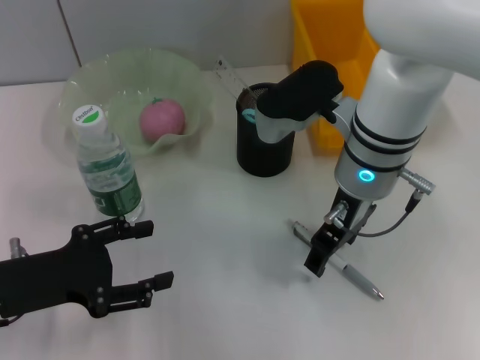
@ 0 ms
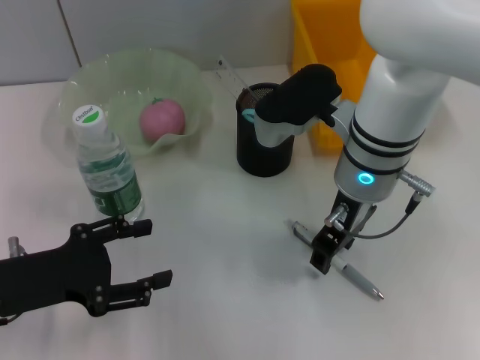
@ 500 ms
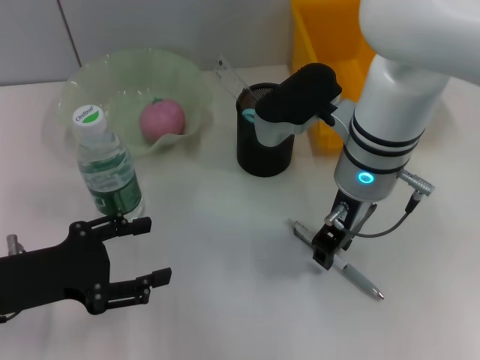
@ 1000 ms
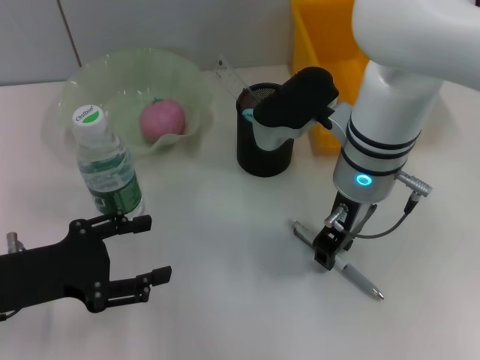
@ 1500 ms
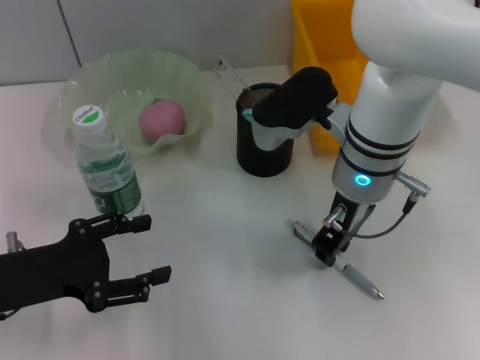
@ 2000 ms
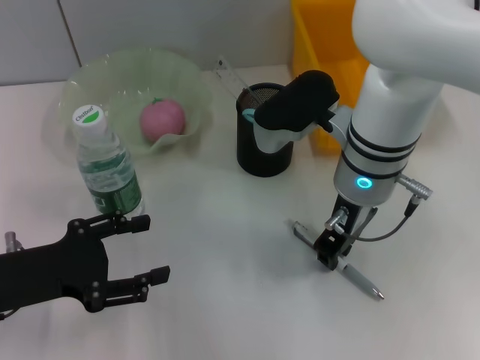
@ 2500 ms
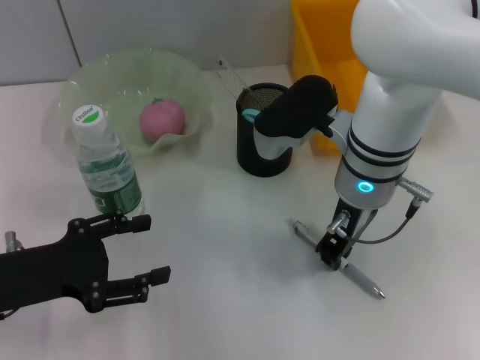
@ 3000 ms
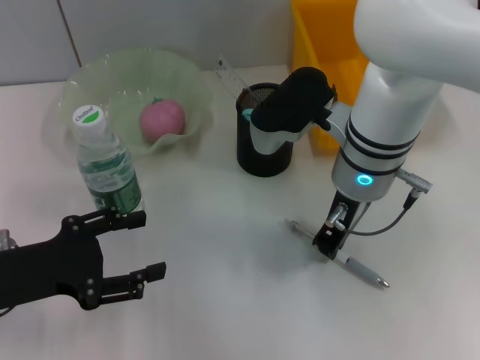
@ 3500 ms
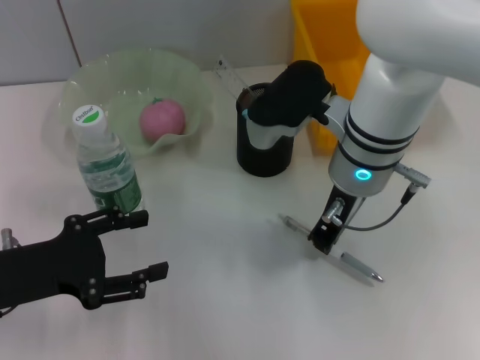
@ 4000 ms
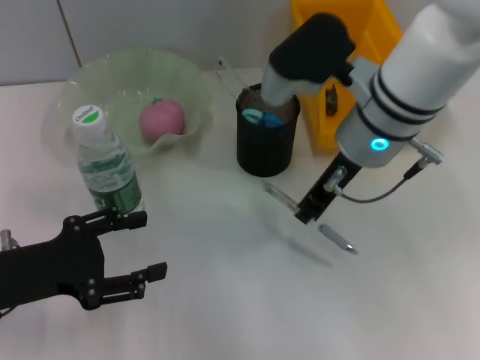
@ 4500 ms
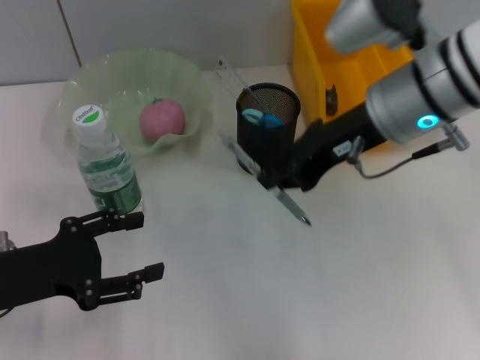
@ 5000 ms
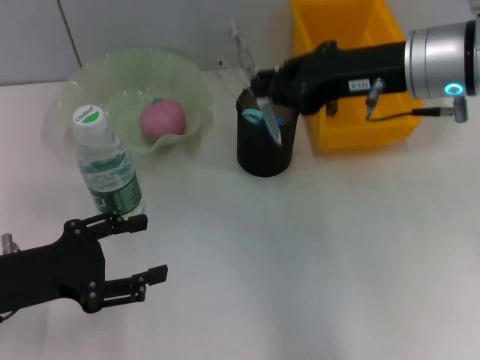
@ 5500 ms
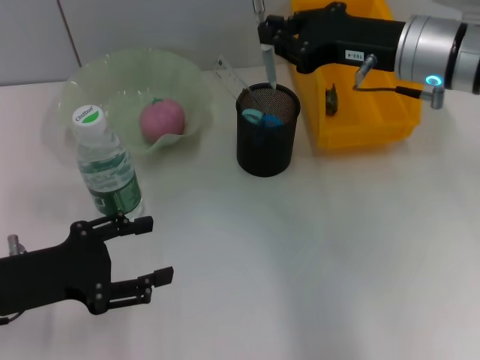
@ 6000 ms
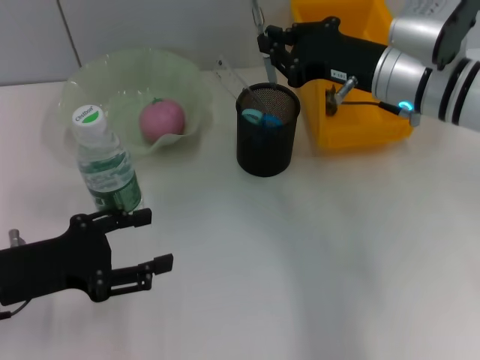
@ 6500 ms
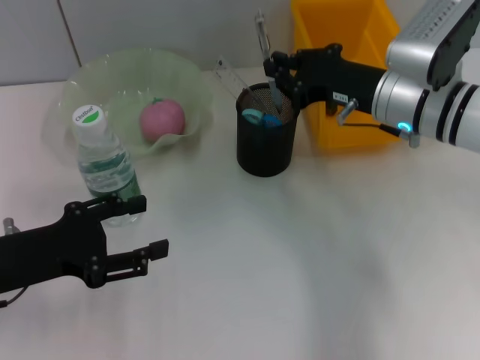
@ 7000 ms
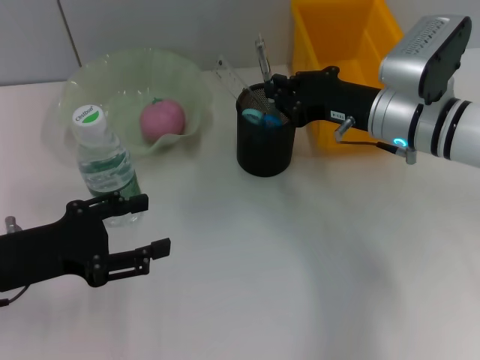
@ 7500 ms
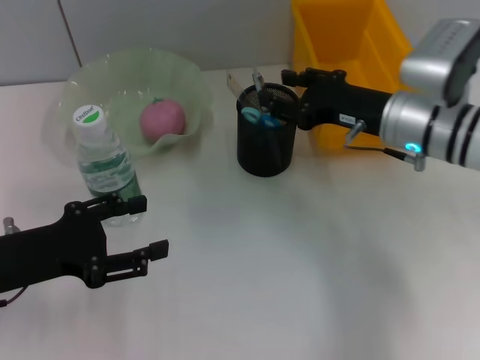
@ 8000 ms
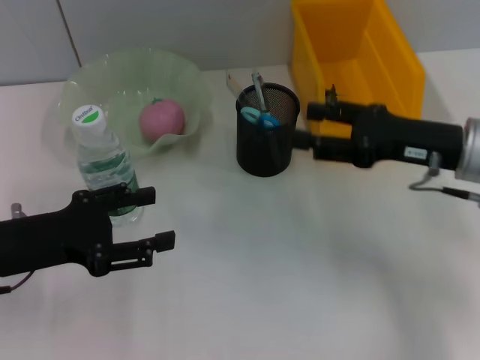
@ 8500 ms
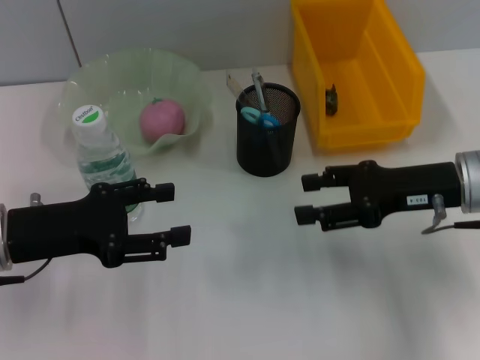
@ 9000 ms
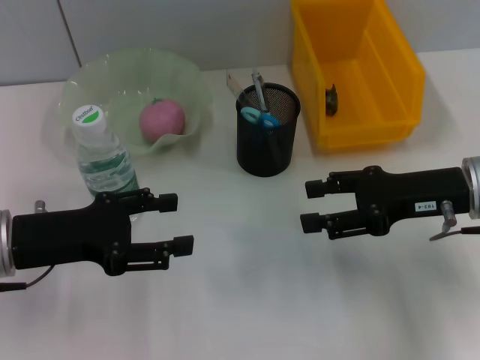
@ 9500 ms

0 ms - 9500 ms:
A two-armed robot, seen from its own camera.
Step, 0 ms - 3000 ms: Grab the gray spring-action pen with the right hand.
Step, 3500 ms - 7500 ms: Place the gray spring-action pen into the pen holder with the right hand.
0 ms - 2000 ms: The right gripper closes up.
2000 ms - 4000 ms: The grippers make only small movements.
4000 ms - 5500 ms: The right gripper moves to the right and upward, approximately 10 cm.
5500 ms - 7500 ms: The right gripper moves downward, some 10 cm.
7500 ms - 9500 ms: The right gripper travels backward and to the right by some 10 cm, and opens up.

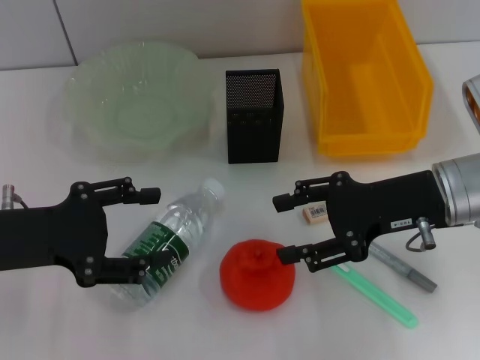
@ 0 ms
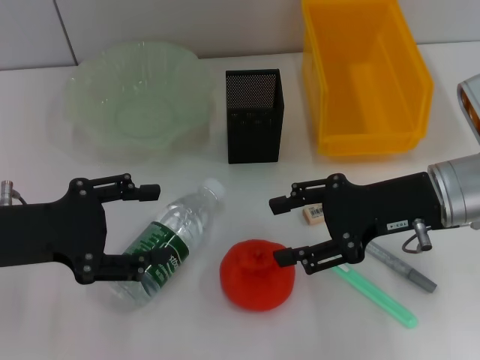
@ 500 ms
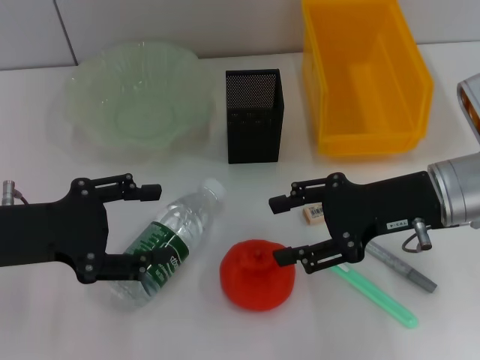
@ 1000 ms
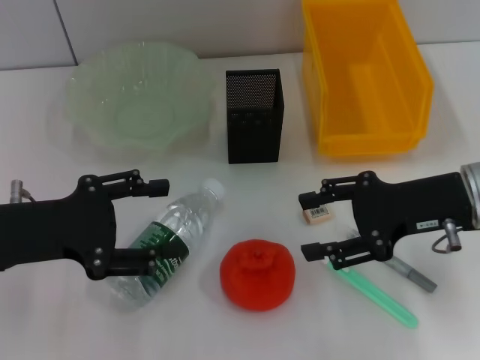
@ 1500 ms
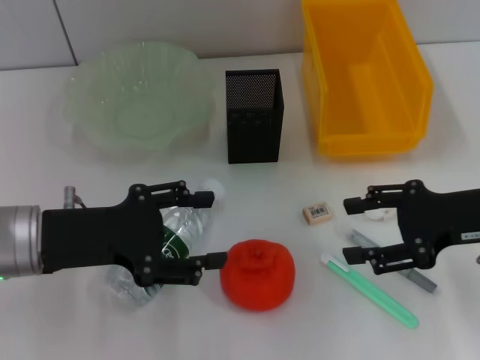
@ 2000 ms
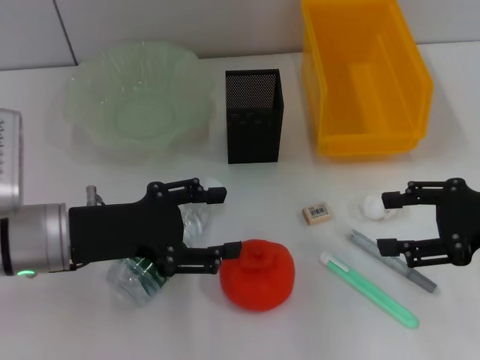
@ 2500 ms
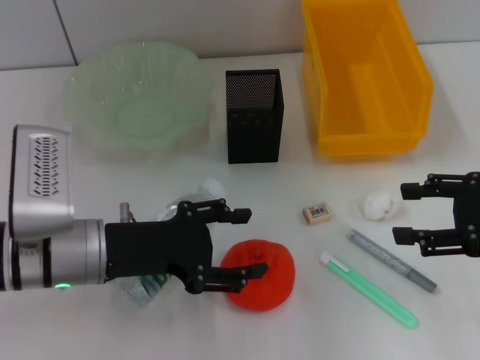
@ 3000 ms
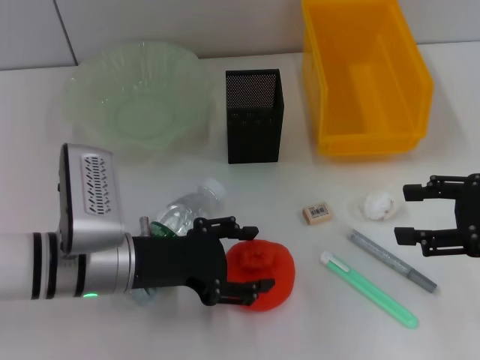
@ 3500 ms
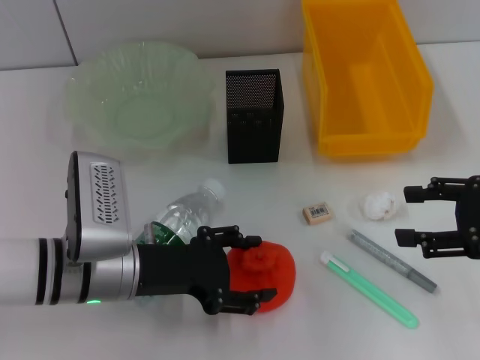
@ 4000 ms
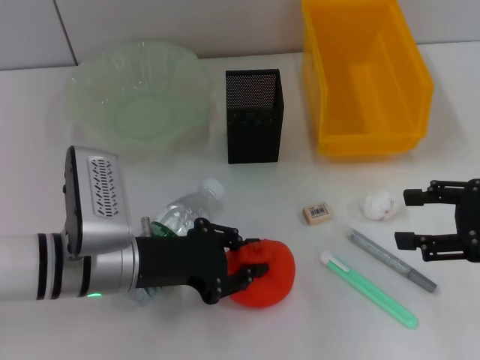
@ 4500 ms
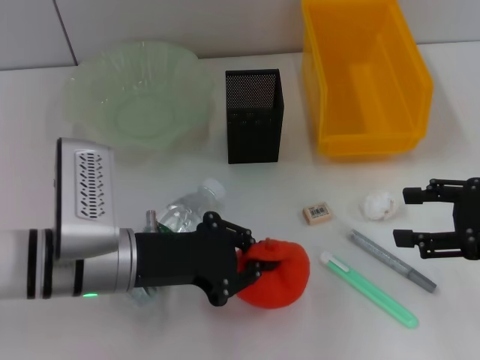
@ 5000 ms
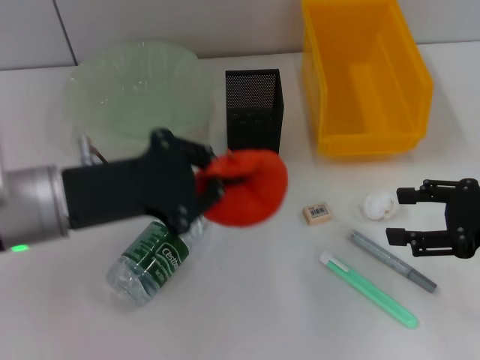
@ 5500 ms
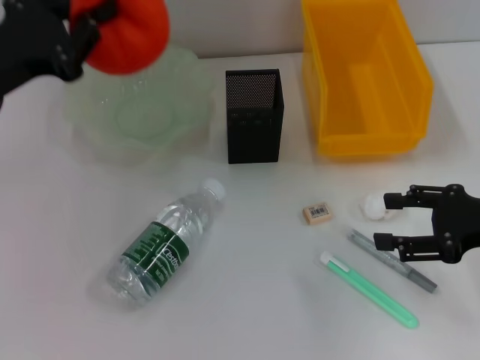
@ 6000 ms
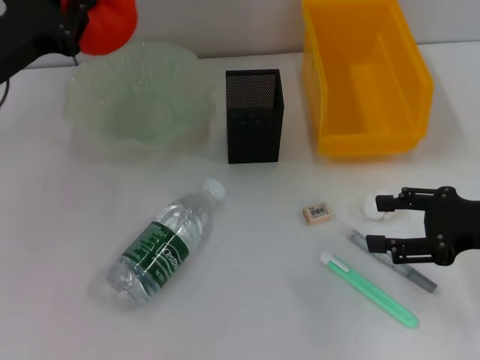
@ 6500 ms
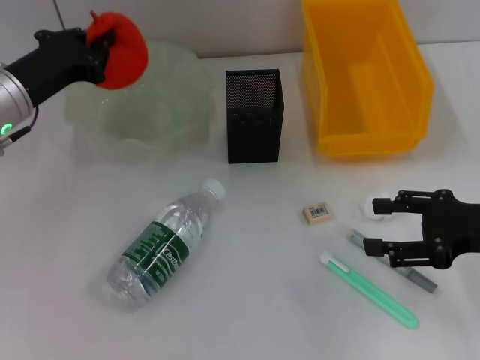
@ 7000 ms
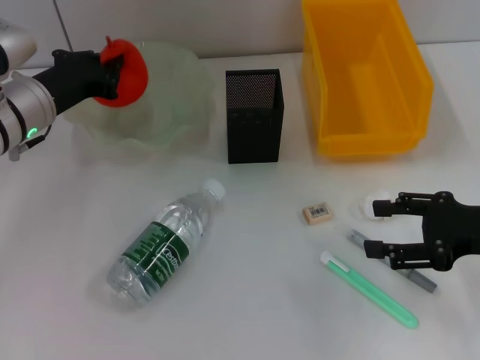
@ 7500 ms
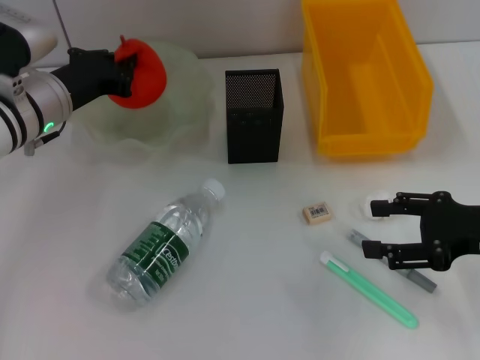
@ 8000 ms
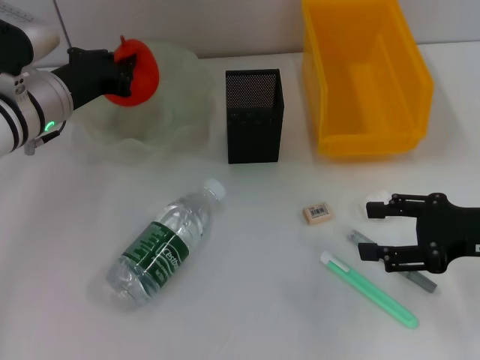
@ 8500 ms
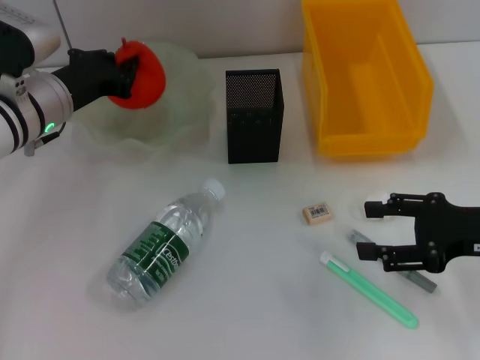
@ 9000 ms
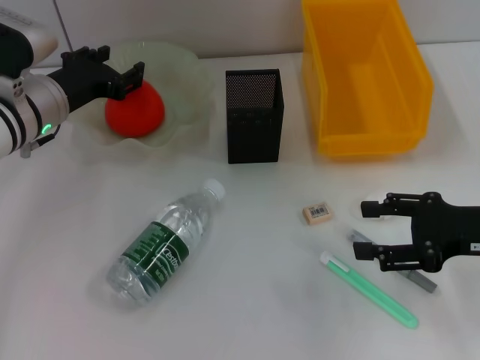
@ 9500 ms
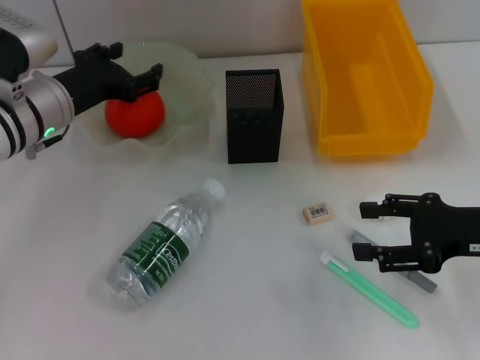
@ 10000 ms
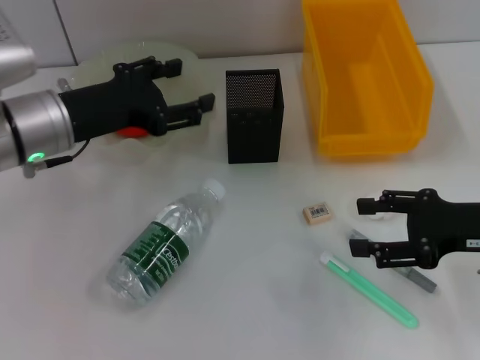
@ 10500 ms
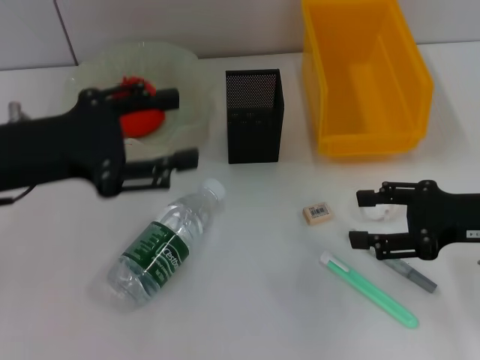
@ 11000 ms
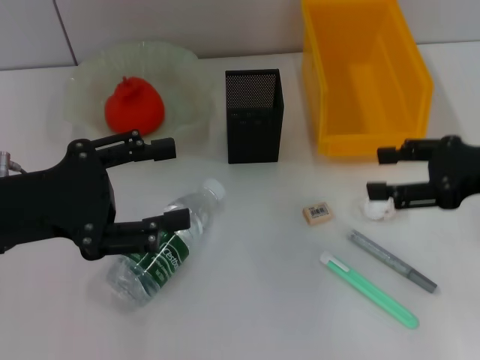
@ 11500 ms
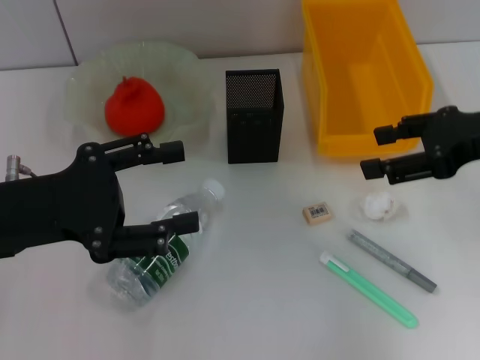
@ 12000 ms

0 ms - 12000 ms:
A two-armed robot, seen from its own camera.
Step, 0 ms - 4500 ms: Grab the orange with the left hand.
Step, 5000 ms - 9500 ms: Place the orange into the fruit bowl with the left hand.
0 ms - 2000 ms: The right gripper heads to the right, covering about 5 cm.
2000 ms - 4000 ms: The right gripper moves approximately 5 cm. The left gripper heads to the right and downward, covering some 10 cm.
4000 ms - 6000 ms: The left gripper travels upward, to the left and forward by roughly 15 cm, and closes up.
6000 ms - 8000 ms: The left gripper moves forward, downward and to the right, approximately 15 cm.
8000 ms - 10000 ms: The left gripper opens its fingers.
10000 ms - 12000 ms: The right gripper goes approximately 10 cm upward; the left gripper moves backward, approximately 15 cm.

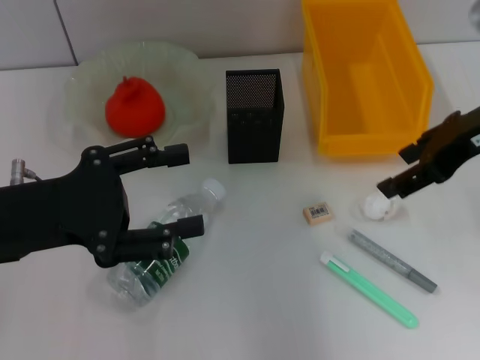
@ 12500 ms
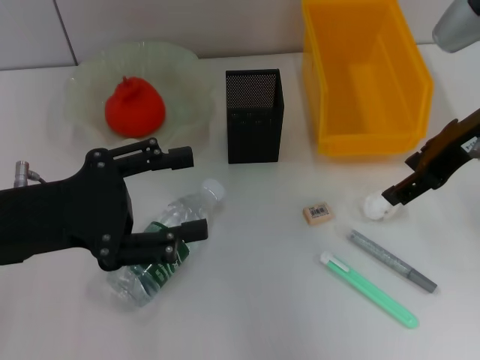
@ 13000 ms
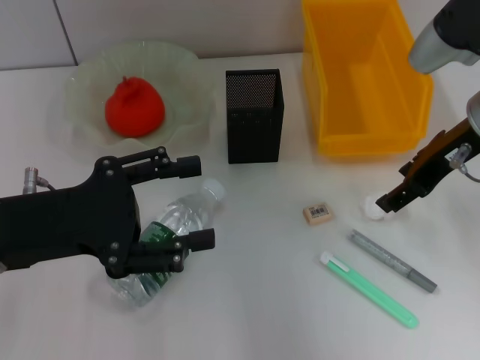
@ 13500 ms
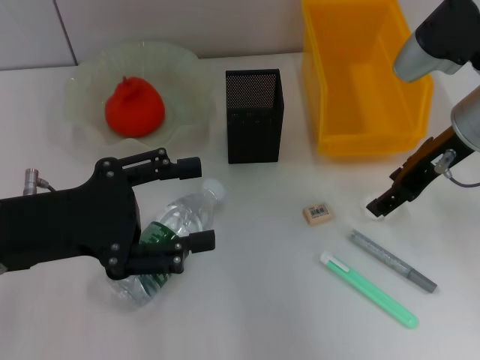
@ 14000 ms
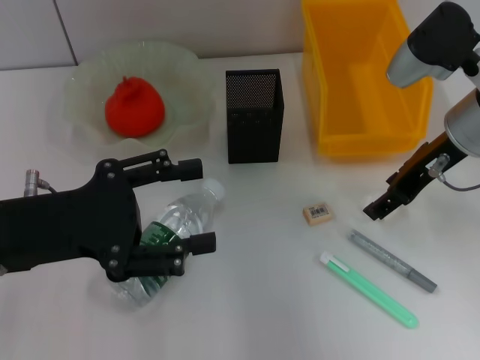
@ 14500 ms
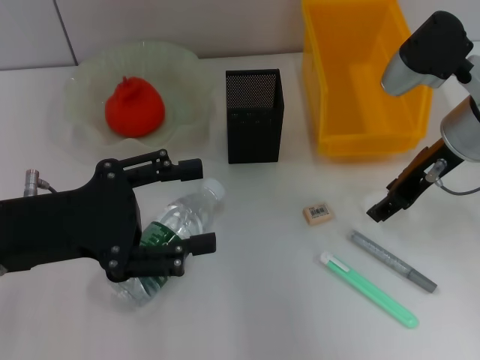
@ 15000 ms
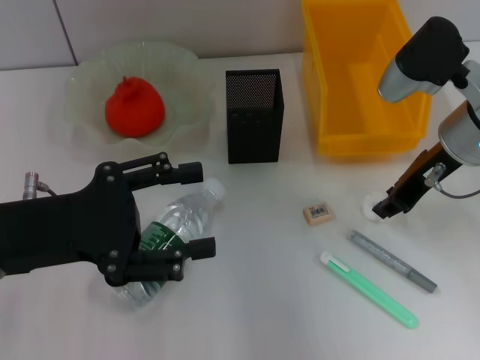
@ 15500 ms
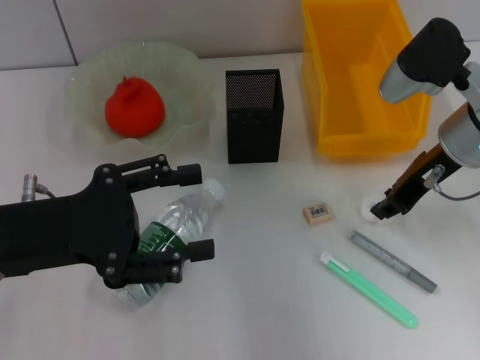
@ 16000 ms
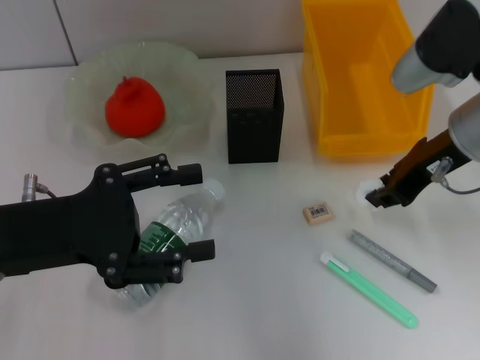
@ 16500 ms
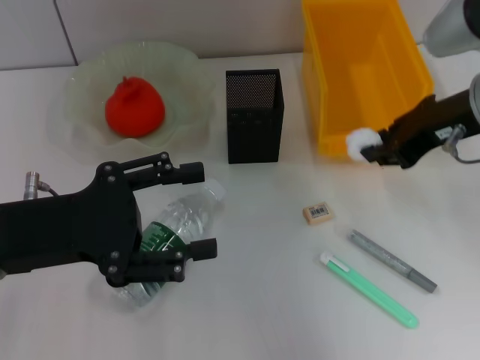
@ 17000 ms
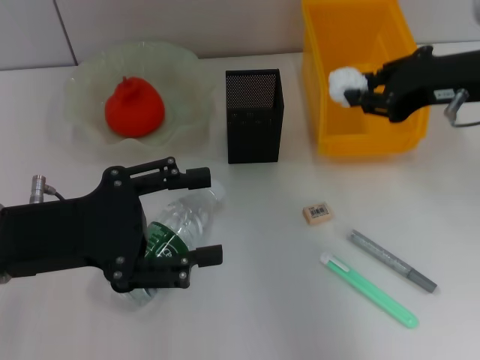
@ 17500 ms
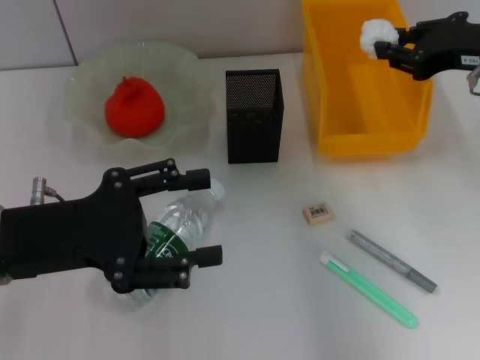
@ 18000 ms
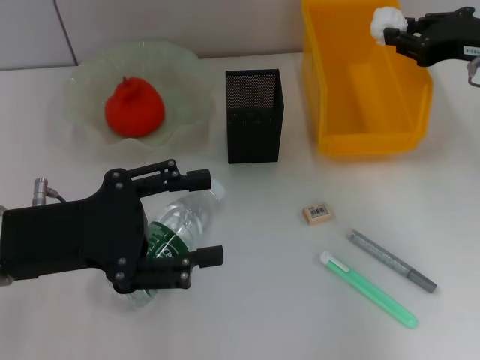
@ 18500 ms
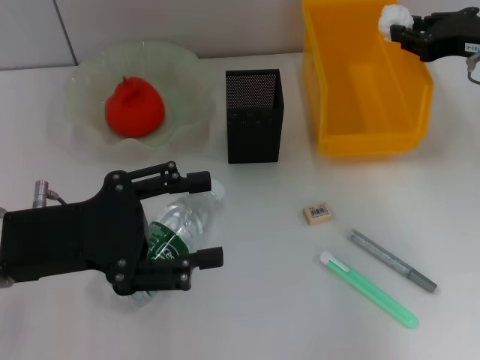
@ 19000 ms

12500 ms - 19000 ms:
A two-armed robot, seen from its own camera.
Step, 12500 ms - 15500 ms: Grab the paper ball with the right hand.
12500 ms - 14500 ms: The right gripper heads downward, covering about 5 cm.
14500 ms - 17000 ms: The right gripper ends up approximately 5 cm from where it was, and closes up.
17000 ms - 19000 ms: The right gripper goes roughly 10 cm to the right and forward.
